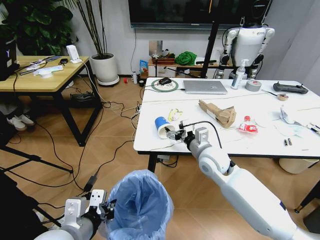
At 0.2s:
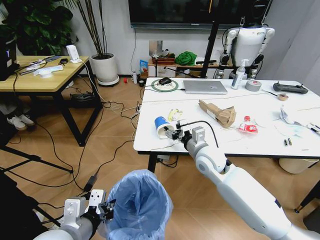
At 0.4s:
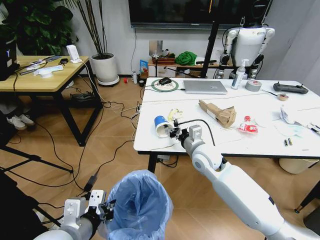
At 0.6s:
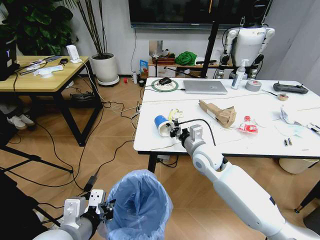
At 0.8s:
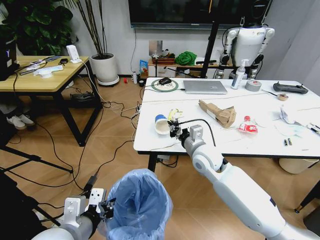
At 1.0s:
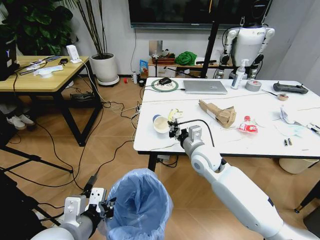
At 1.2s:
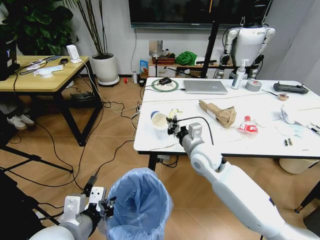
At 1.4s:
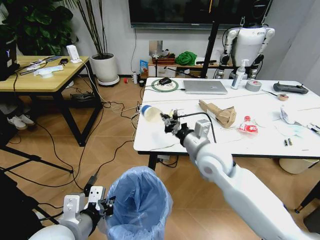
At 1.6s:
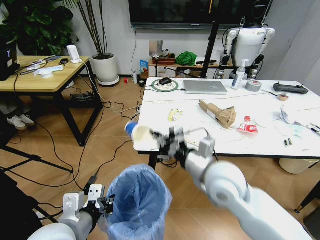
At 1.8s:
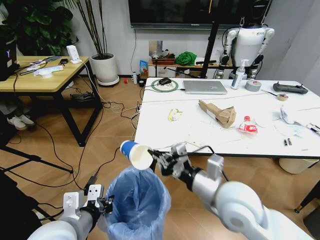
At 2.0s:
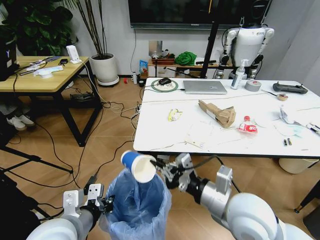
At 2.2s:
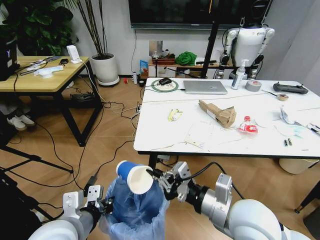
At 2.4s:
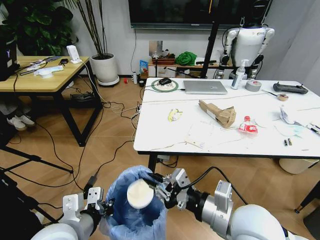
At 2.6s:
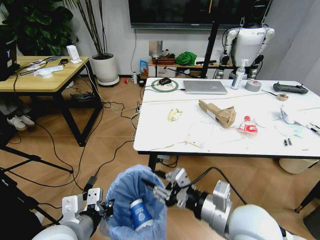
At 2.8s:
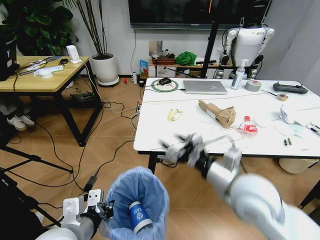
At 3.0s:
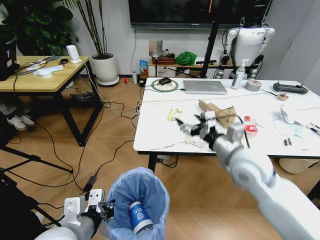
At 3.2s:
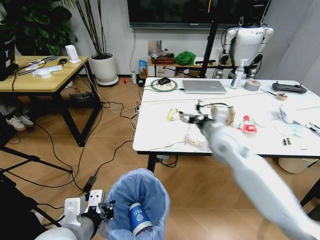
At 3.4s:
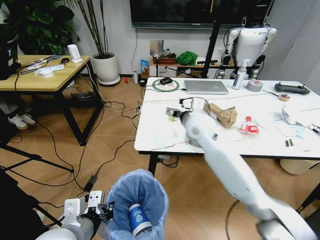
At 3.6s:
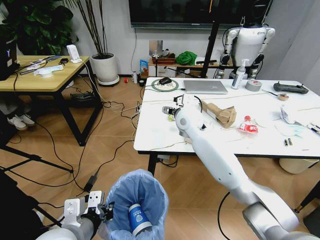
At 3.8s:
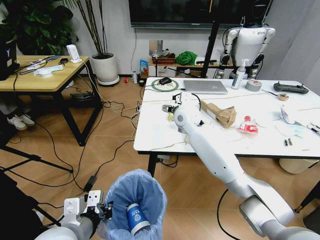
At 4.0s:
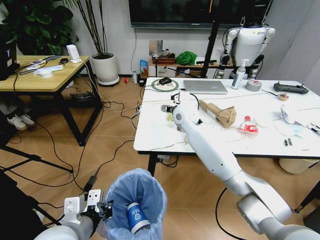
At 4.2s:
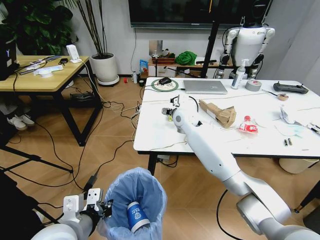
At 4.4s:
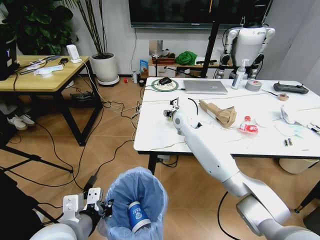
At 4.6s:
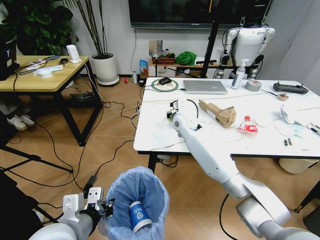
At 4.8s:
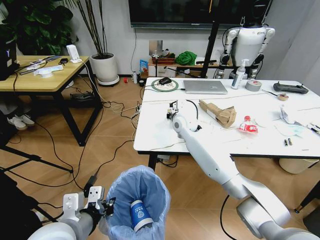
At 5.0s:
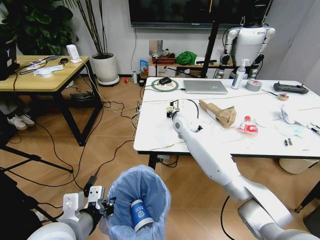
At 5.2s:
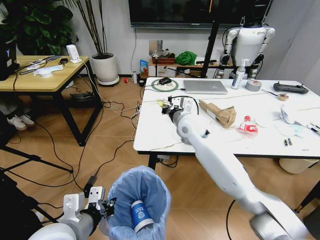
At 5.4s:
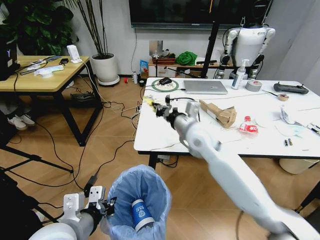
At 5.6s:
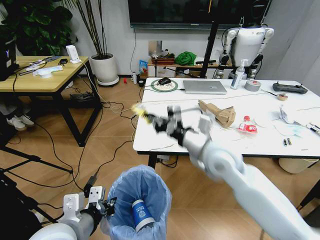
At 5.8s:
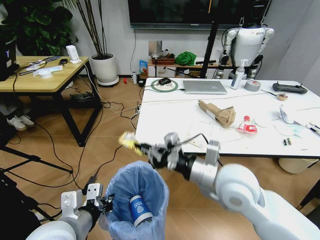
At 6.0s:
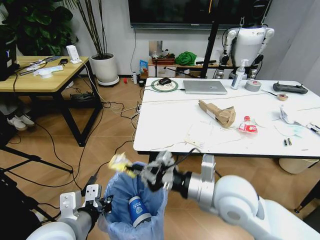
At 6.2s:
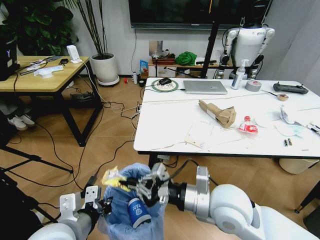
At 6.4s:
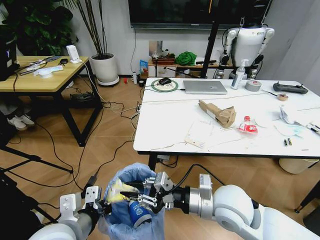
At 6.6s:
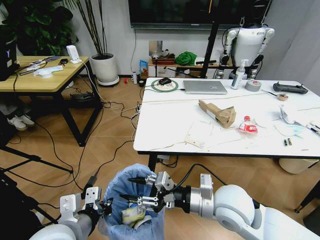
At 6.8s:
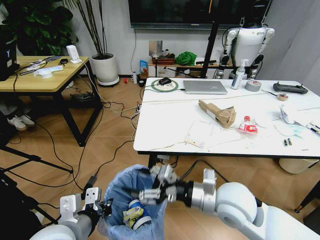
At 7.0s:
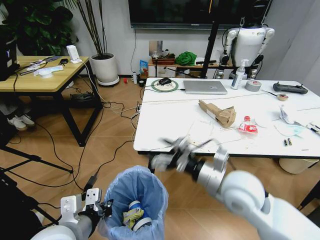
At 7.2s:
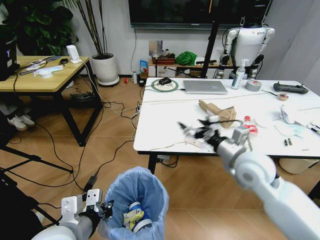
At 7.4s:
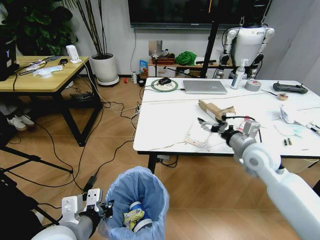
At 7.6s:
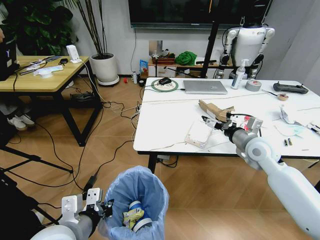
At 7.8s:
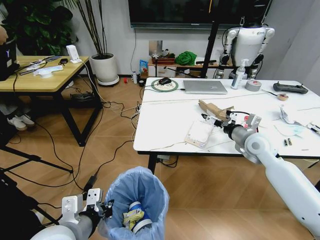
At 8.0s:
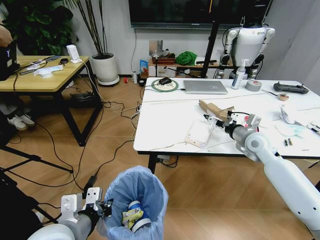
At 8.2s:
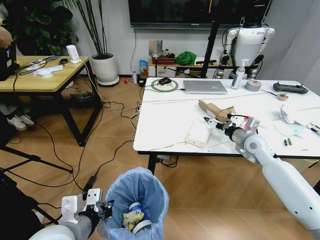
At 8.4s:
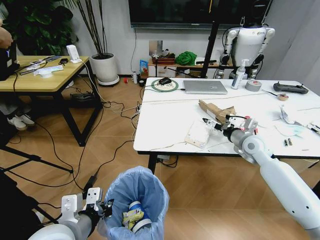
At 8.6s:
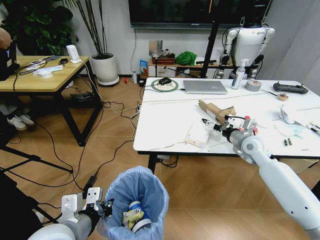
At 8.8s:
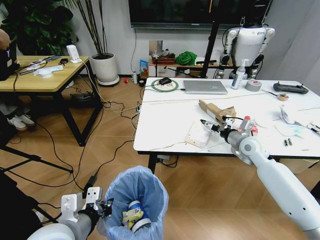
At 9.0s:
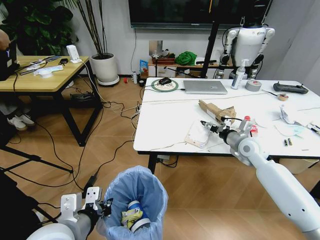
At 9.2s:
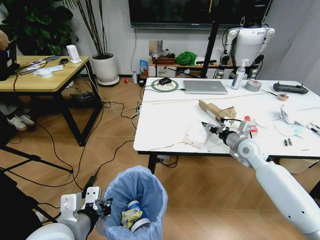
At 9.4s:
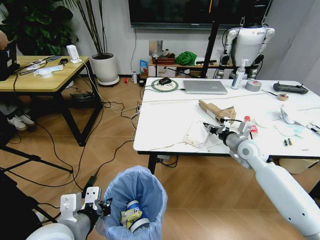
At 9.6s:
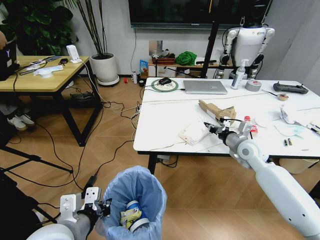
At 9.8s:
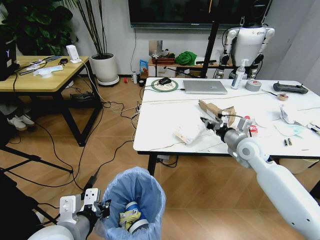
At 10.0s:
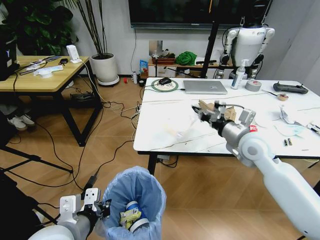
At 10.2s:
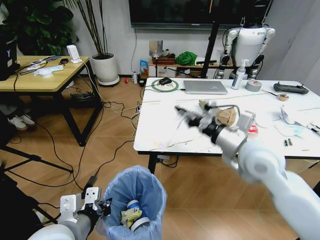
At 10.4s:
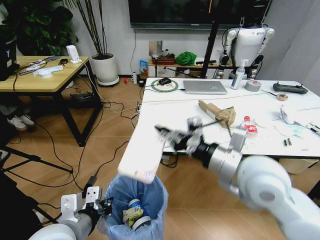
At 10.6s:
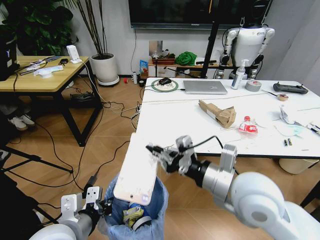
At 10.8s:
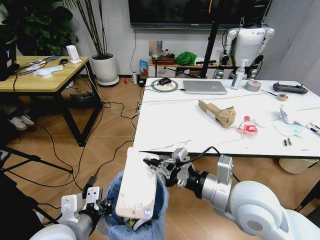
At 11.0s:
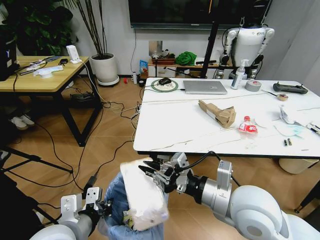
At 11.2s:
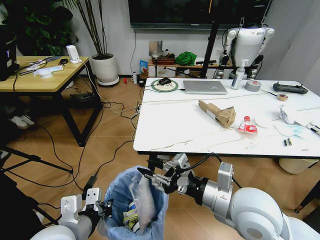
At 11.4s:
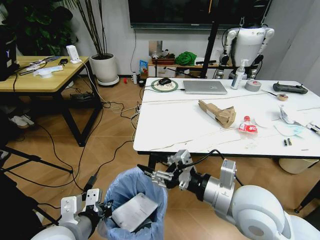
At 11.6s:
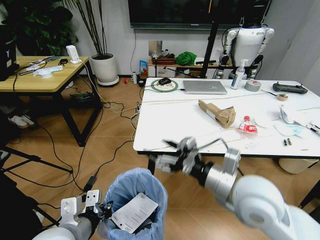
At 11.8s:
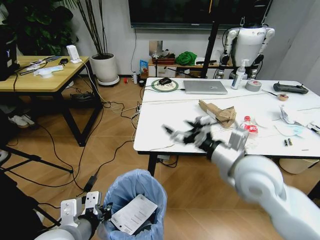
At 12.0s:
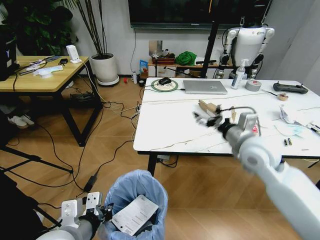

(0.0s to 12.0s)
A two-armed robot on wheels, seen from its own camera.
Task of the whole recording: Pick up the trash bin and place the trash from the table into it.
0.0s - 1.6s: The right gripper moves backward and upward, approximately 15 cm, and closes.
1.6s - 3.0s: The right gripper heads to the right, covering some 5 cm, travels backward and back again, about 10 cm each way, and opens up.
3.0s - 4.4s: The right gripper goes roughly 25 cm forward and to the left.
4.4s - 6.0s: The right gripper moves backward, about 30 cm, and closes.
6.0s - 7.6s: The right gripper shifts roughly 25 cm to the right and forward, and opens up.
7.6s - 9.0s: The right gripper moves roughly 5 cm, and closes up.
9.0s - 10.4s: The right gripper is displaced backward, upward and to the left by about 30 cm, and closes up.
10.4s - 12.0s: The right gripper heads forward and to the right, covering some 10 cm, and opens up.

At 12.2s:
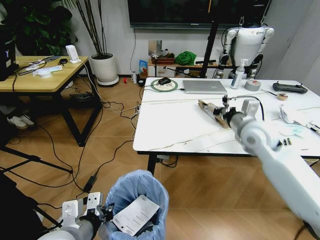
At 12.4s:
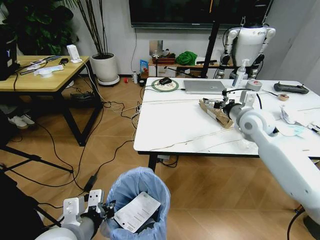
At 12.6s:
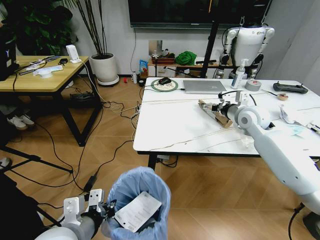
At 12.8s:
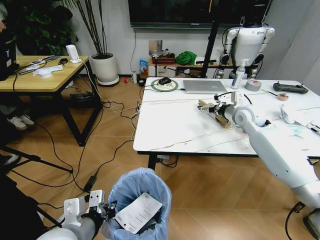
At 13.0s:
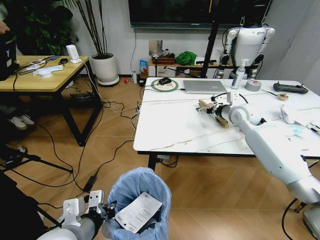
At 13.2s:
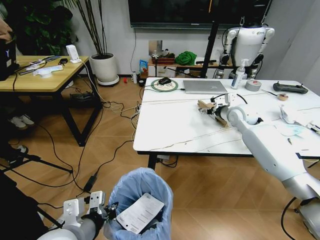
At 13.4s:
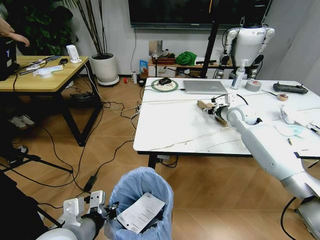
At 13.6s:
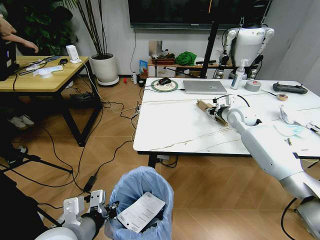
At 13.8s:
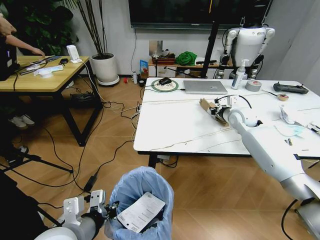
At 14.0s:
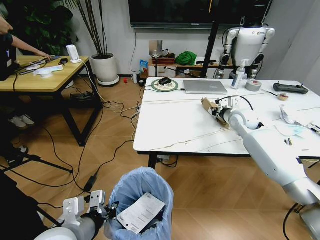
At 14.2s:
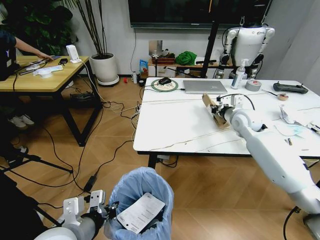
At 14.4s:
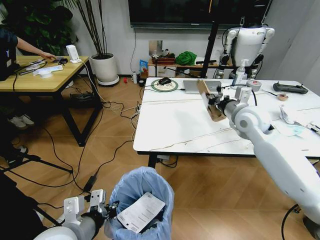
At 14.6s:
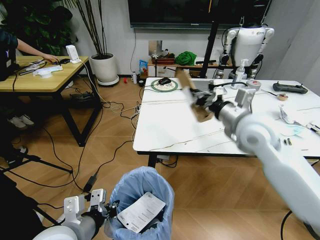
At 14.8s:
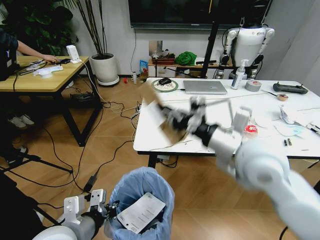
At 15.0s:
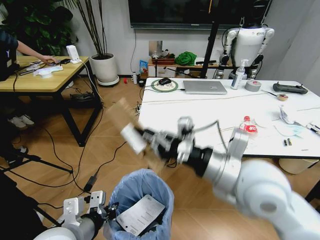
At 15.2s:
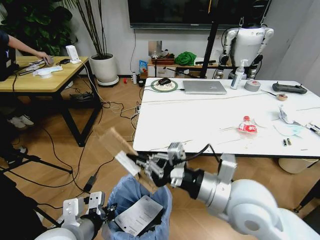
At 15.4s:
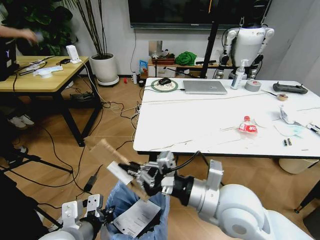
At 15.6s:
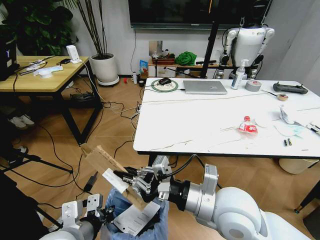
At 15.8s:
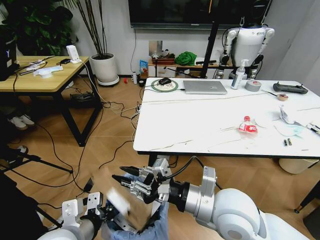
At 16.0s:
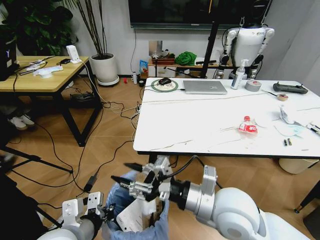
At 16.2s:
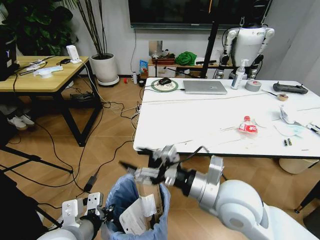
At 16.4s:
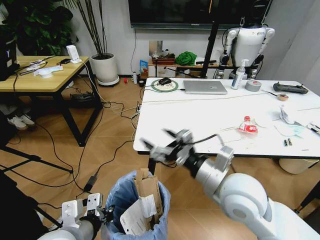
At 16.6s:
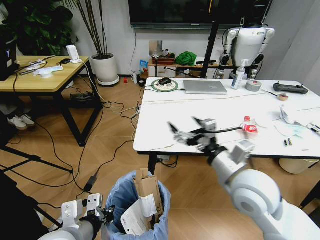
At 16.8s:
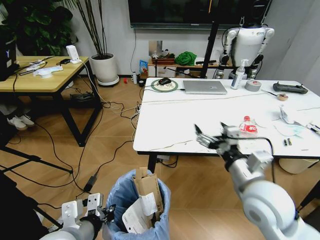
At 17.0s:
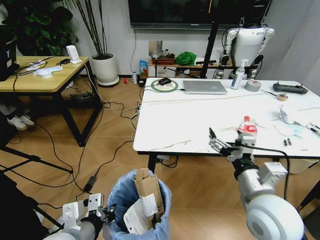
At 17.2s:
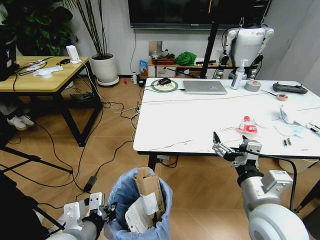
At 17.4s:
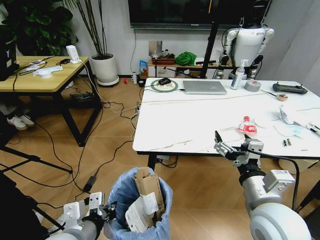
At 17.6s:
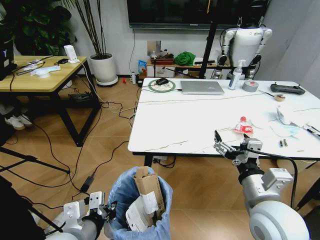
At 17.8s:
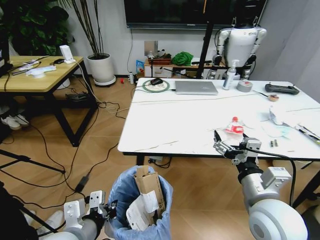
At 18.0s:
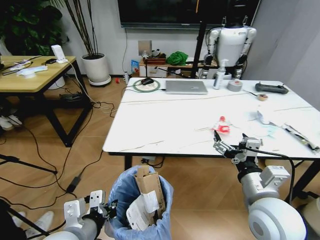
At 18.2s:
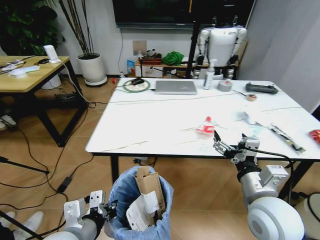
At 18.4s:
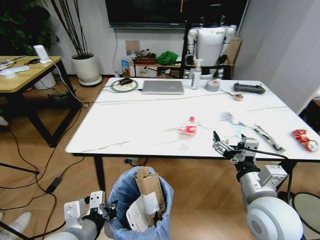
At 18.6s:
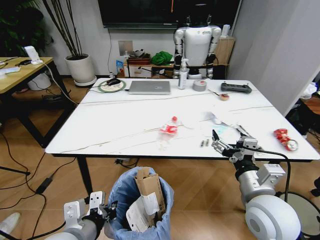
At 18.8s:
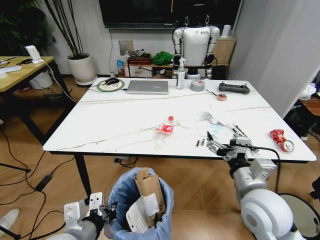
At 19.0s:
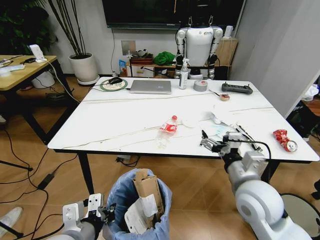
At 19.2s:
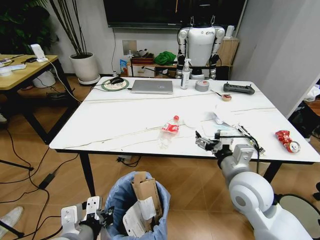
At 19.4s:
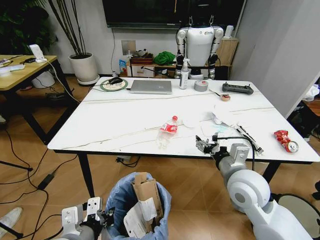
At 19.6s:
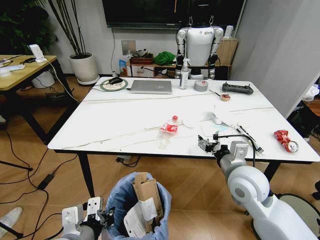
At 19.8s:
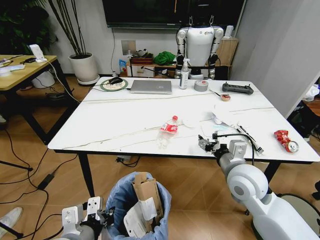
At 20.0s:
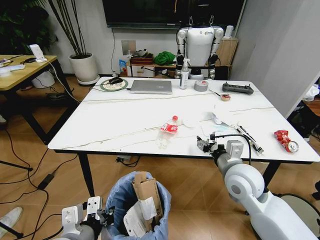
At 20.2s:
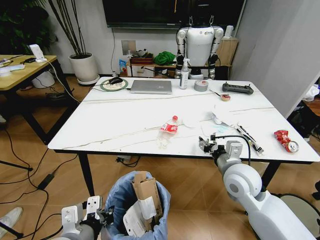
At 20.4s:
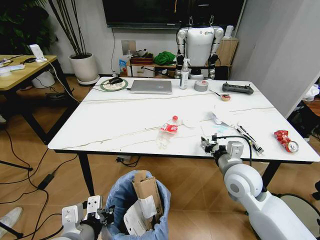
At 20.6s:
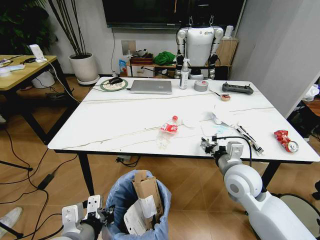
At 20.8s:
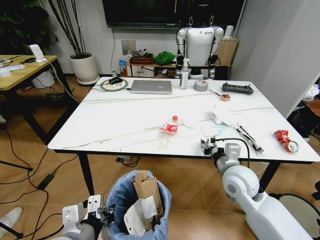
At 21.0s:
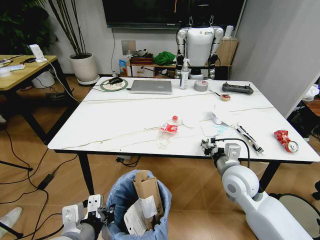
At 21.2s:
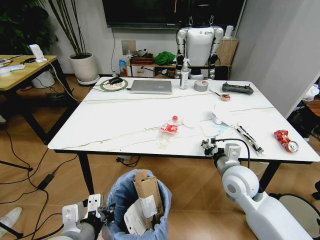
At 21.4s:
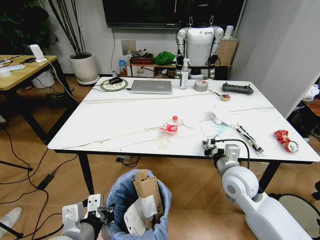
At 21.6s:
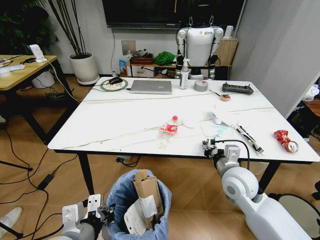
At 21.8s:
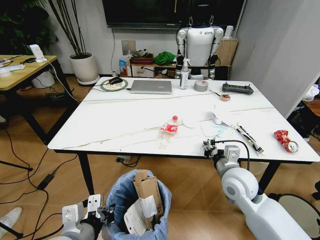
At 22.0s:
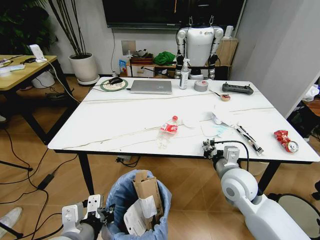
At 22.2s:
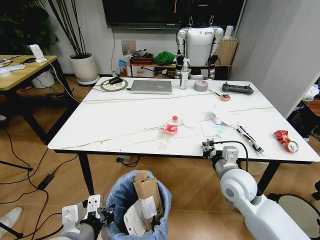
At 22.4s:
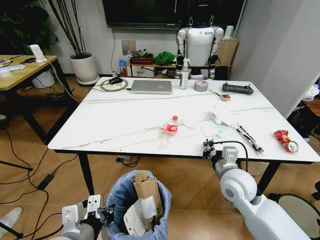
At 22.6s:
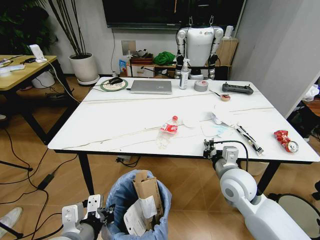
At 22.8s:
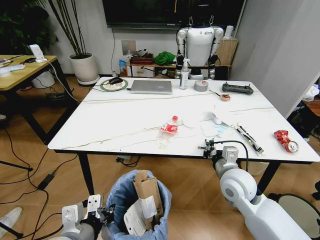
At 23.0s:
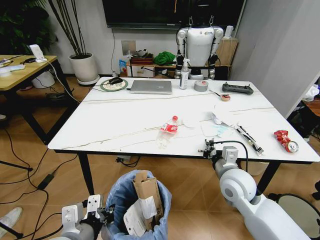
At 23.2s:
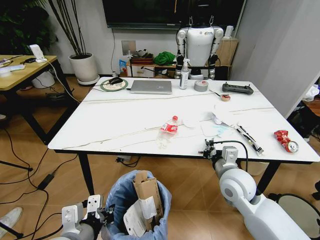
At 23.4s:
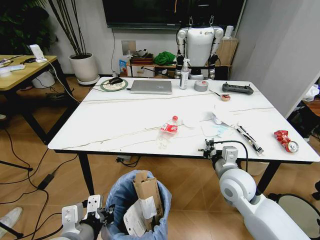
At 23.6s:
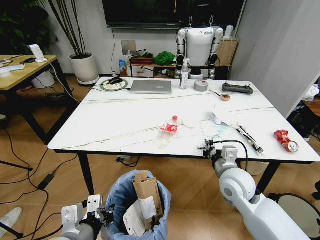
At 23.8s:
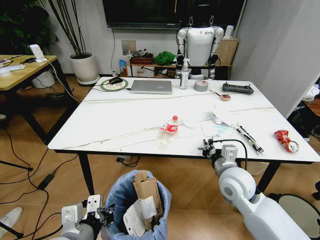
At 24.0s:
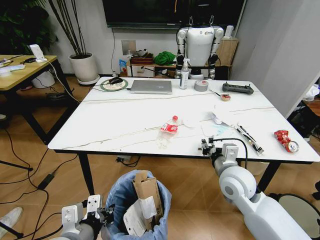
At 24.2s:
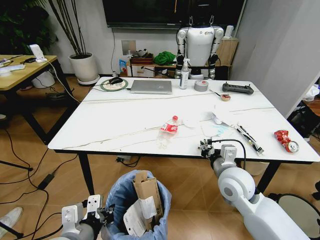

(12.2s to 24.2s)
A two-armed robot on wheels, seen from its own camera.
Task of the whole recording: Pick up the trash bin and place the trash from the table into it.
12.2s - 13.8s: The right gripper goes approximately 15 cm forward and downward, and closes its fingers.
13.8s - 15.2s: The right gripper travels backward and to the left by some 35 cm.
15.2s - 16.6s: The right gripper opens its fingers.
16.6s - 18.2s: The right gripper shifts by approximately 5 cm.
18.2s - 19.8s: The right gripper is displaced forward by some 10 cm.
19.8s - 21.2s: The right gripper closes.
21.2s - 22.6s: Neither gripper changes place.
22.6s - 24.2s: The two grippers keep their place.
